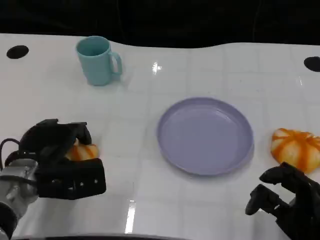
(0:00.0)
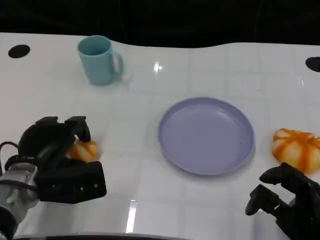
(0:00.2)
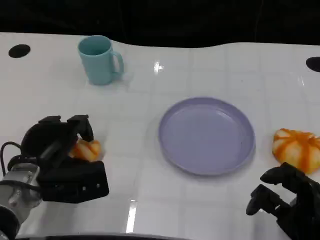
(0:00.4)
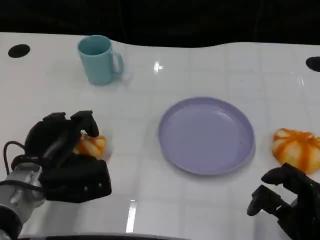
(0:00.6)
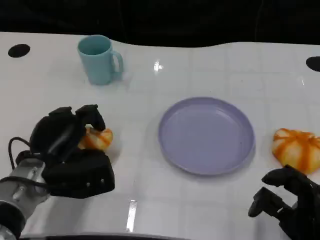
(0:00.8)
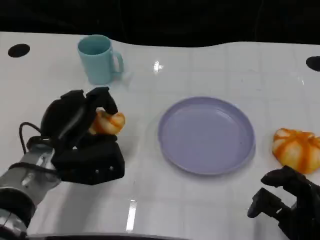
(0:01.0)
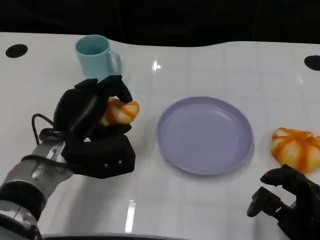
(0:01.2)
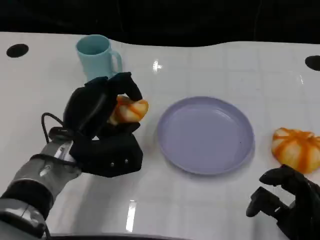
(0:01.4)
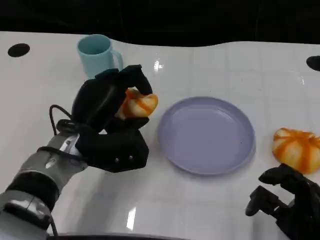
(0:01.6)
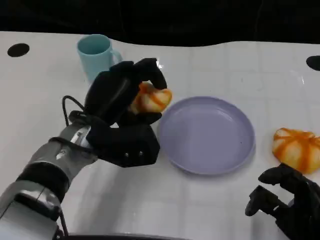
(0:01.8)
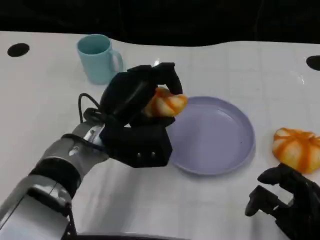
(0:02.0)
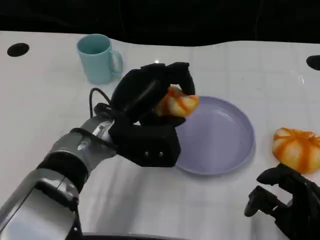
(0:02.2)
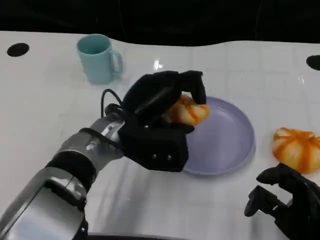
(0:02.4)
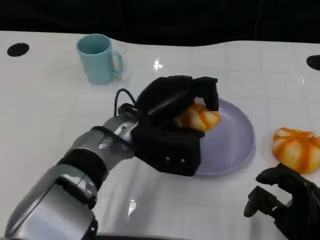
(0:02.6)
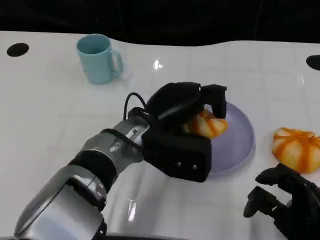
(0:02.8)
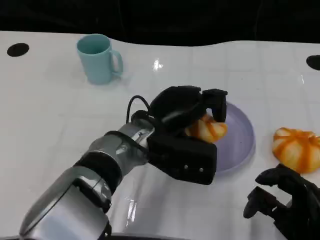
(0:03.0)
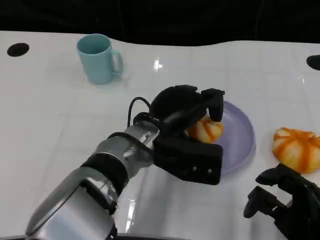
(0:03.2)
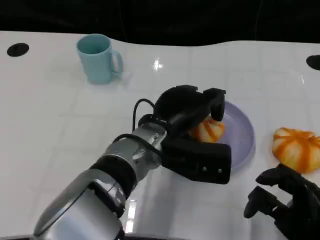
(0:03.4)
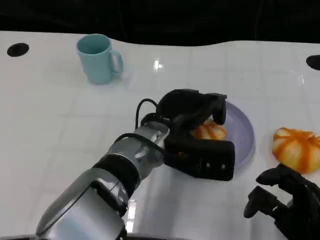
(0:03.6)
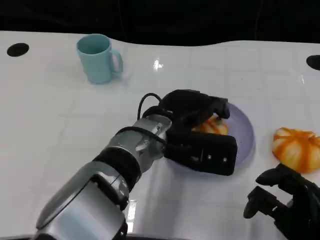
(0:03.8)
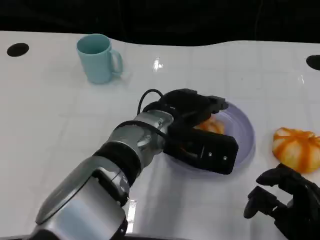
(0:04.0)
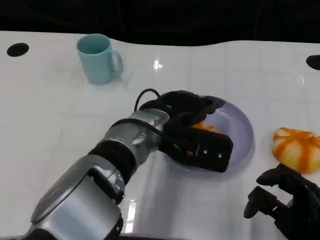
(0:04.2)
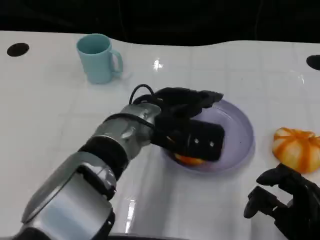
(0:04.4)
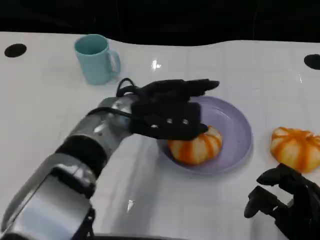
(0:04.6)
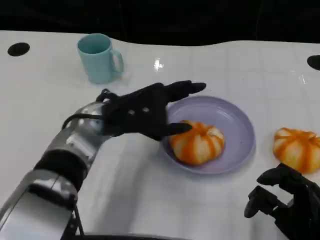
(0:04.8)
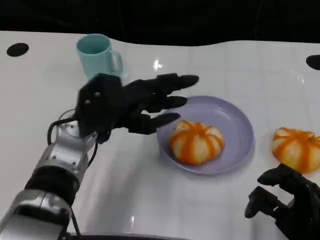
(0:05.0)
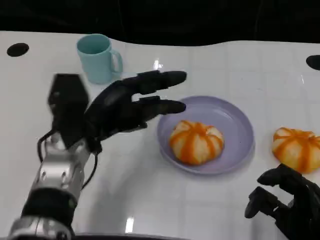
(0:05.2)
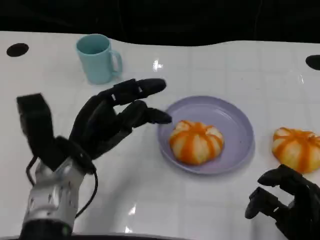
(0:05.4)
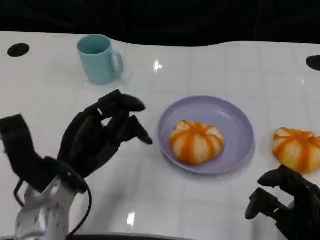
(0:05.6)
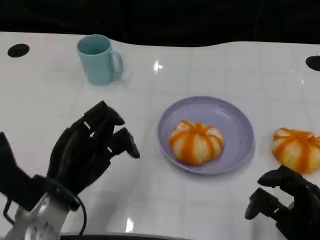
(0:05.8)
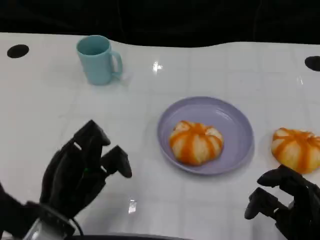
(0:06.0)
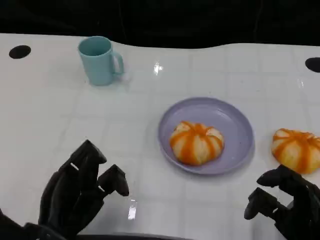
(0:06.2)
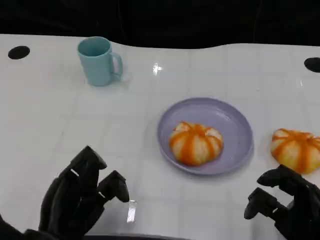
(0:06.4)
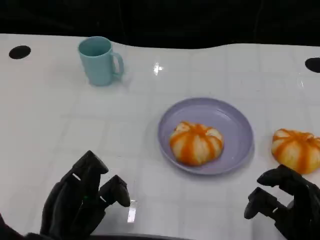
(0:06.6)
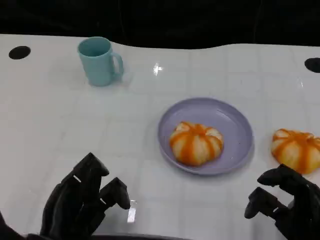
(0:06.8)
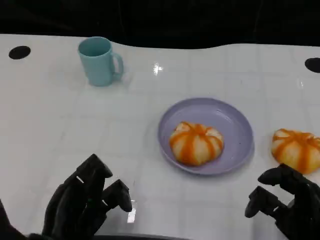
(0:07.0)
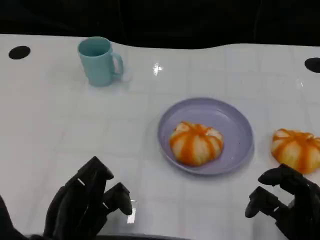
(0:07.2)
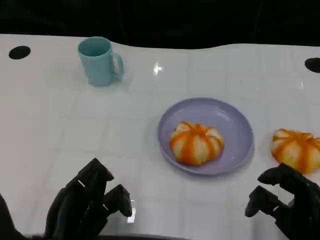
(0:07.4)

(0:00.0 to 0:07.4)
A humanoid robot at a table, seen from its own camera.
Task of the whole recording: Grasp the bread from the table and place it into the plate.
0:00.0 - 0:01.4: The left hand is displaced to the right by about 5 cm.
0:01.4 - 0:03.0: The left hand moves to the right, some 10 cm.
0:04.4 - 0:06.0: The left hand goes about 20 cm to the left, backward and downward.
0:06.0 - 0:07.4: The hands stay close to where they were, moving slightly.

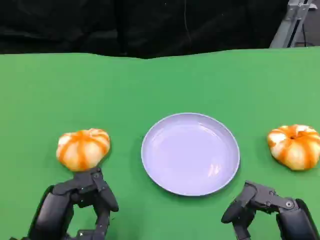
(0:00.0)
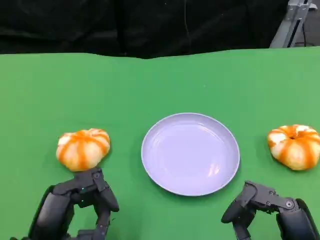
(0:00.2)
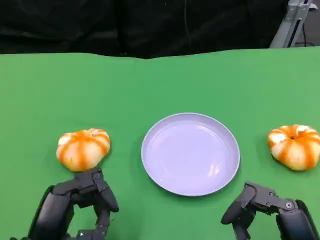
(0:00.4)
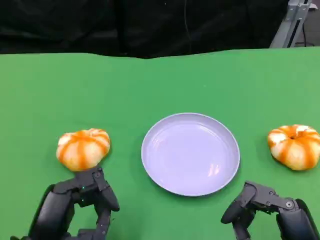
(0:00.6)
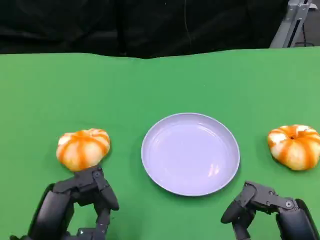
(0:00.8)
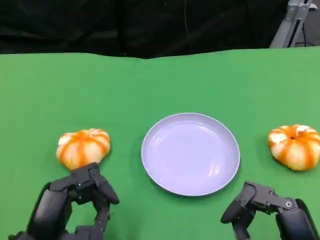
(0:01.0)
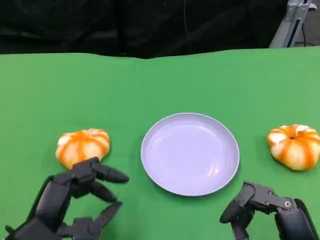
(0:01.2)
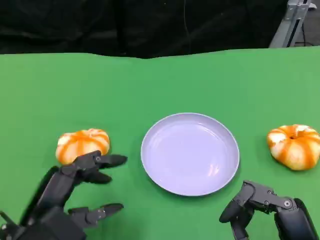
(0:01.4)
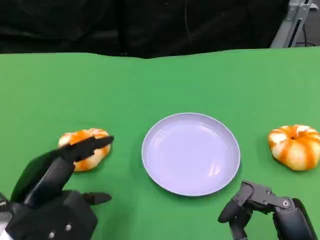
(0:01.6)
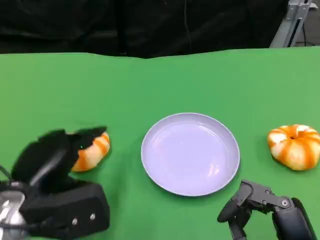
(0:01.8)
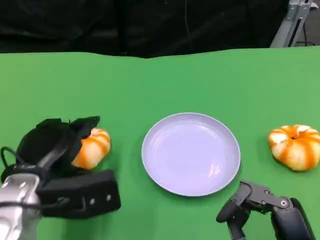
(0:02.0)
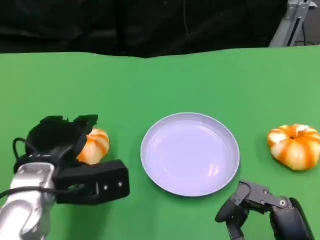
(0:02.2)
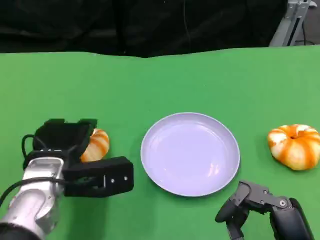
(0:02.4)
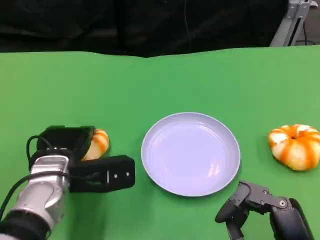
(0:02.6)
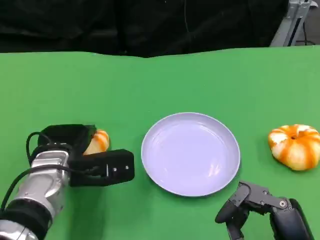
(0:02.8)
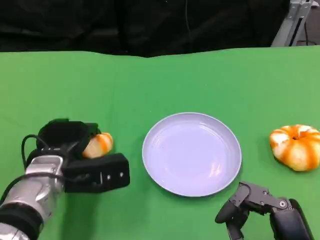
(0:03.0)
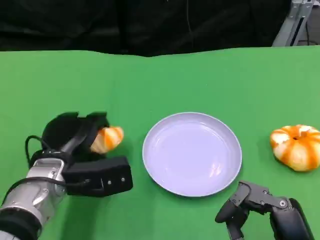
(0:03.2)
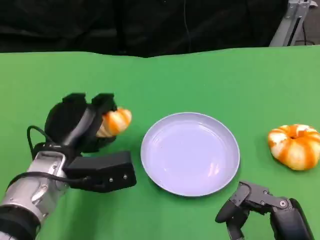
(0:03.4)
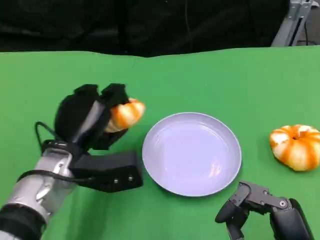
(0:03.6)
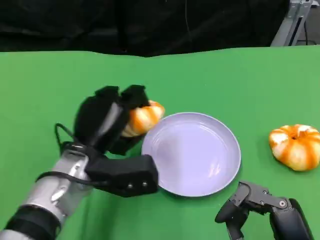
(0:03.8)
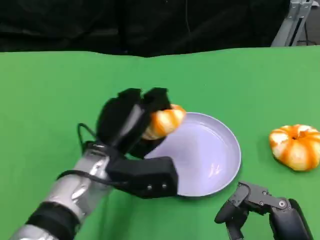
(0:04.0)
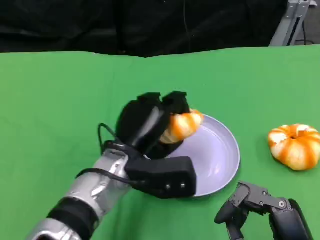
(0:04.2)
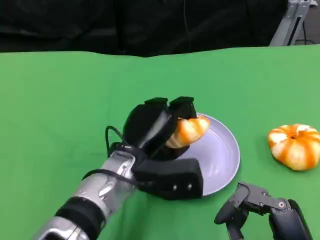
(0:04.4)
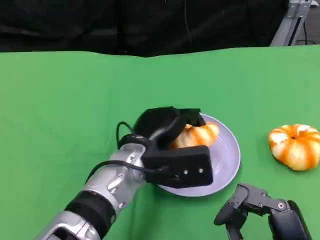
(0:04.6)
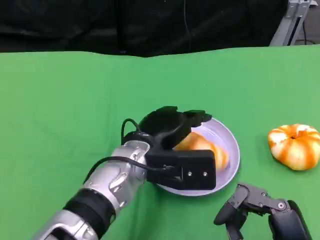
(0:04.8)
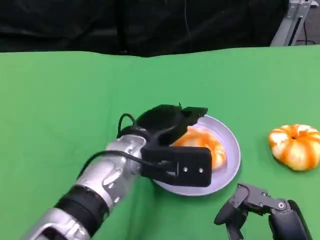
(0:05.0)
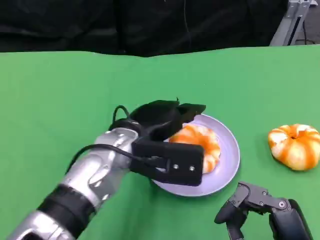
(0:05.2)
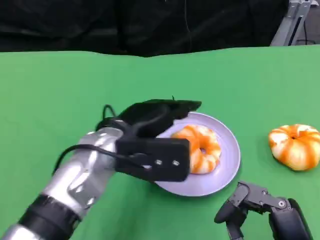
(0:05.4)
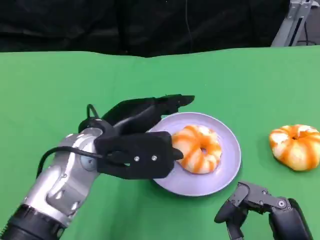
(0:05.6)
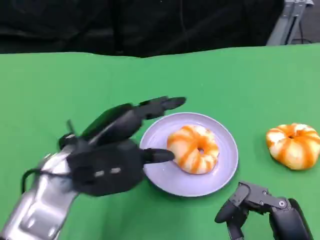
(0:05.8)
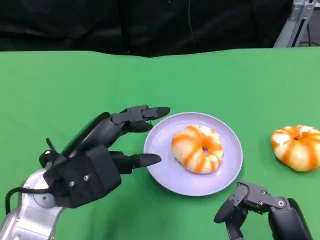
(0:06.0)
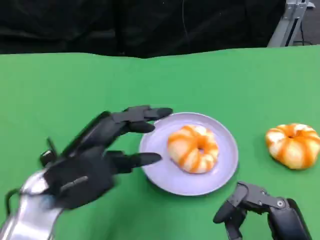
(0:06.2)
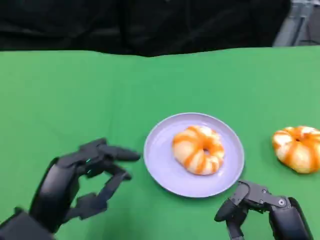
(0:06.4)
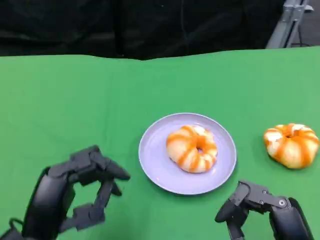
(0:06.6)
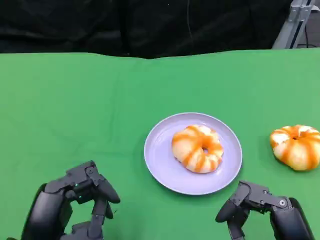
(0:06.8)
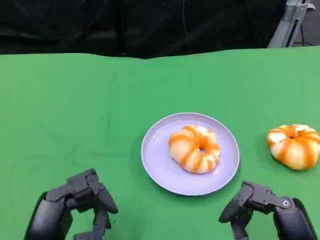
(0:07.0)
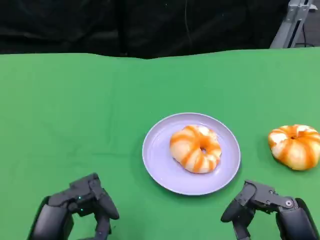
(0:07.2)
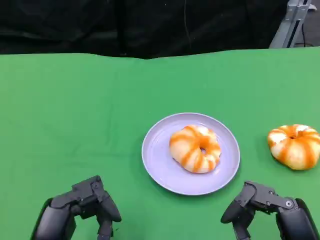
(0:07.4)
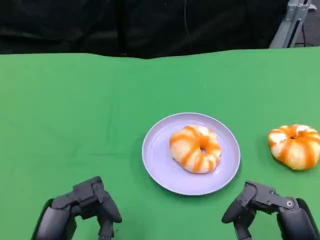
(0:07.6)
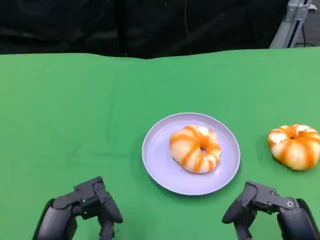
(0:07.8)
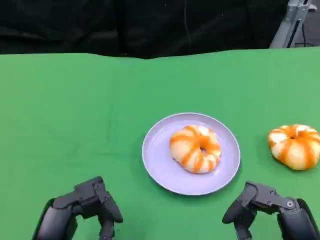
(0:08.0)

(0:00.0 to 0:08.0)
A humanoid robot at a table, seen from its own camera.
Task of the whole recording: Grasp the bread from the table and place it into the plate.
0:00.0 - 0:01.6: The left hand shifts by roughly 5 cm.
0:01.6 - 0:03.2: The left hand goes about 10 cm forward.
0:03.2 - 0:04.8: The left hand is displaced to the right by roughly 10 cm.
0:04.8 - 0:06.4: The left hand travels to the left and backward by about 20 cm.

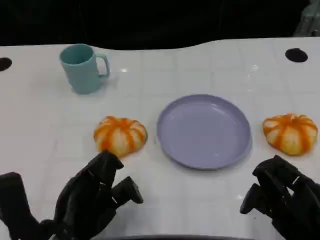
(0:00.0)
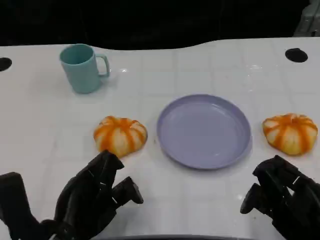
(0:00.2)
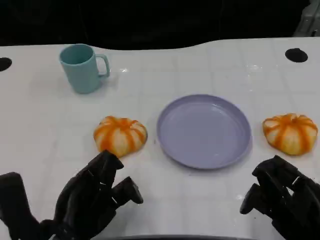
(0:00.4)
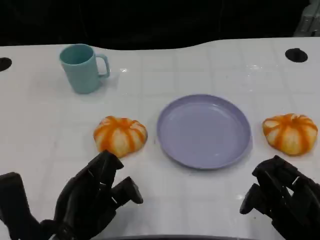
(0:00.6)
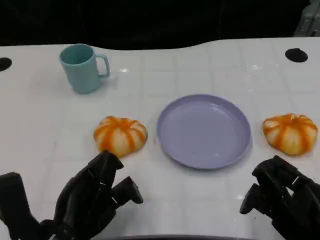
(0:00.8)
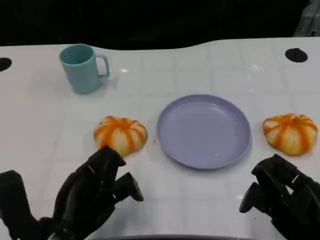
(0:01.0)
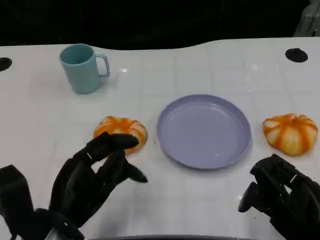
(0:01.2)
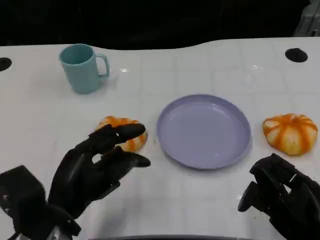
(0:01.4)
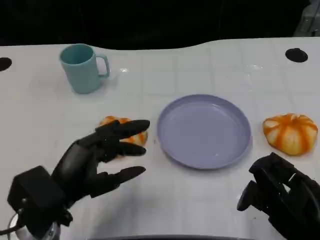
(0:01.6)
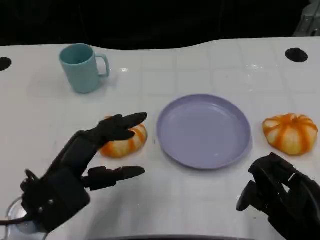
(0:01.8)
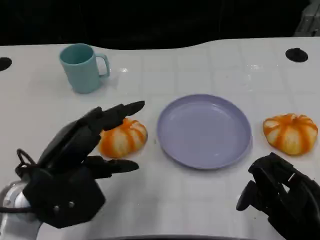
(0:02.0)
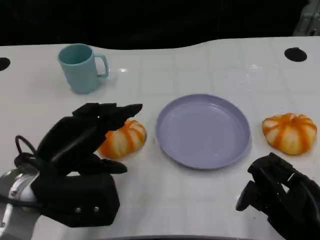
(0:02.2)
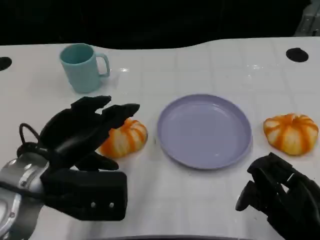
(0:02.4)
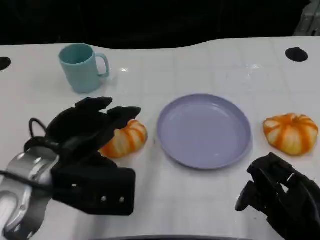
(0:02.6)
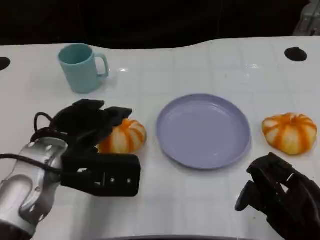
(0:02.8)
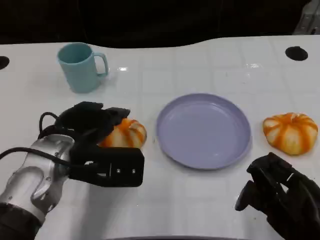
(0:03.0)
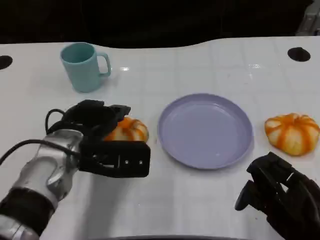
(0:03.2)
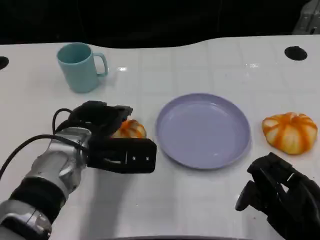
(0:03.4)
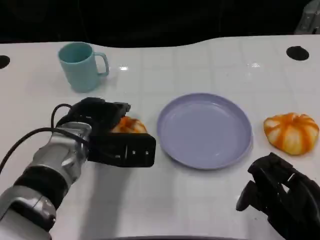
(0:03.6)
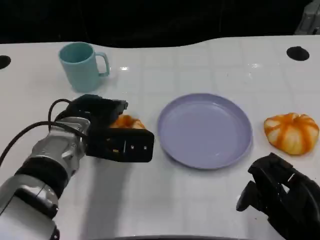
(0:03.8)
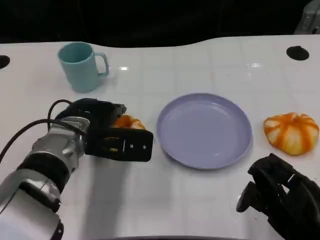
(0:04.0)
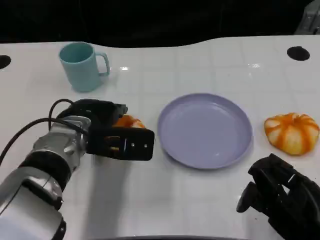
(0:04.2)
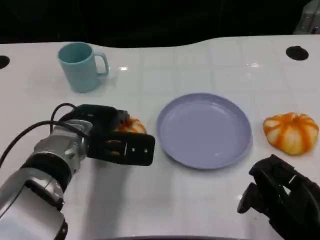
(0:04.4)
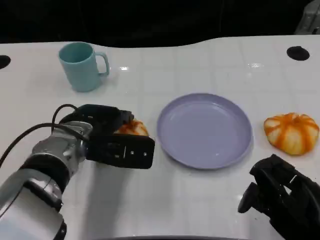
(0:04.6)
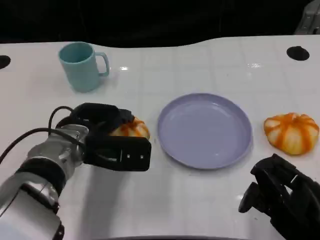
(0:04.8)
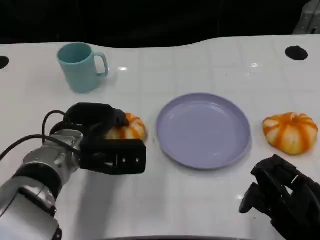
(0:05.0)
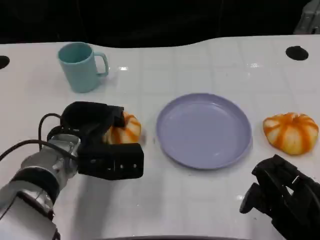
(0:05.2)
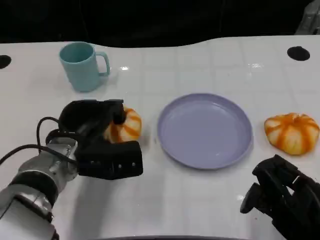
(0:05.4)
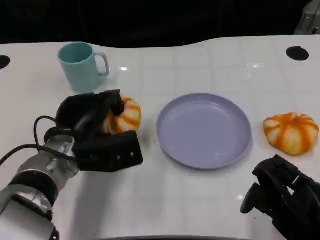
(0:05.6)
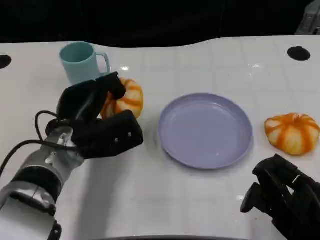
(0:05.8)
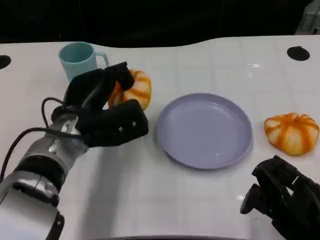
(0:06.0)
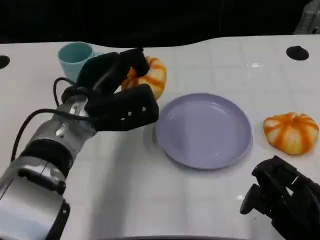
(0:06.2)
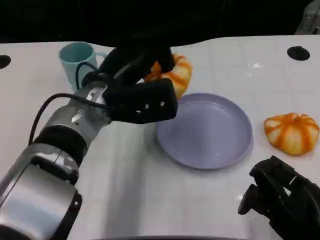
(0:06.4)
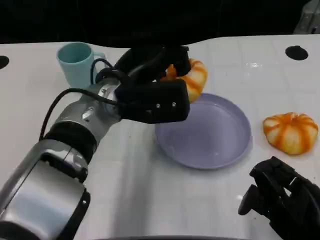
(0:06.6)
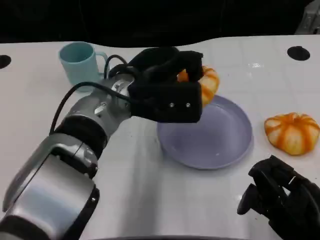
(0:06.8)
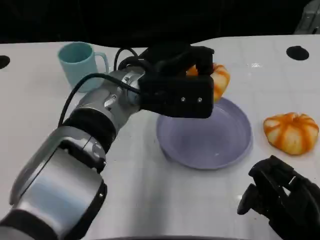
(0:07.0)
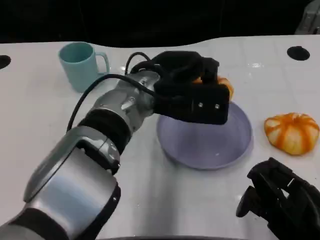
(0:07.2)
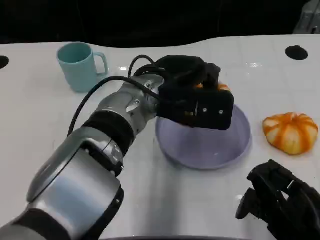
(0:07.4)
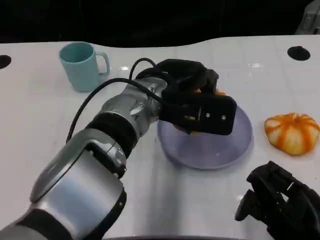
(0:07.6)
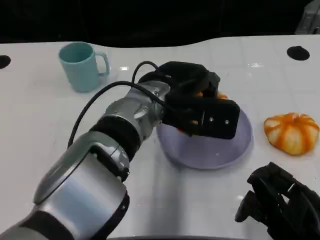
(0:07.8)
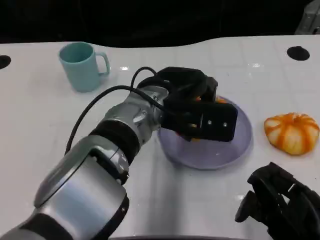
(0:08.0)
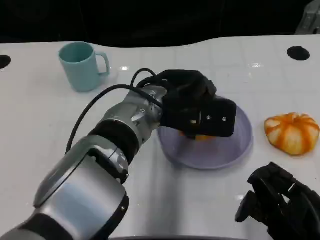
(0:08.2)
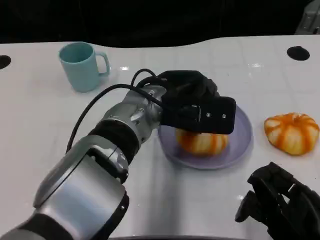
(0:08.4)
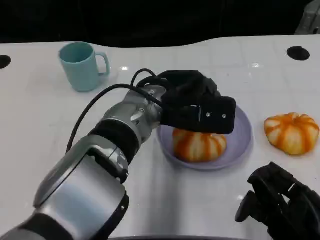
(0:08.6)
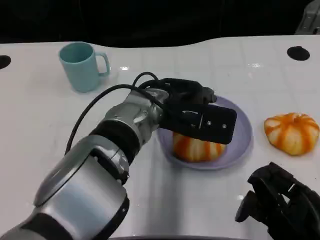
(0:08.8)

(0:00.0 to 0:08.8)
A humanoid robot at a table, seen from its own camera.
Task of the whole recording: Grasp the bread from the table and place it into the plate.
0:01.4 - 0:03.0: The left hand heads forward, covering approximately 10 cm.
0:03.0 - 0:04.4: The left hand ends up some 5 cm from where it was.
0:05.8 - 0:07.4: The left hand travels to the right and upward by roughly 15 cm.
